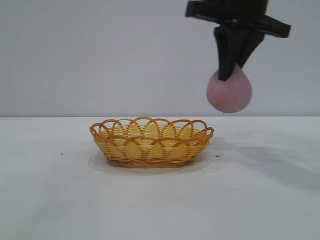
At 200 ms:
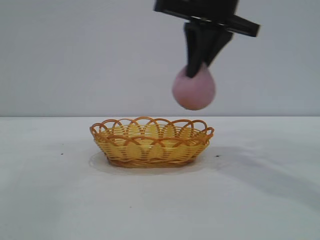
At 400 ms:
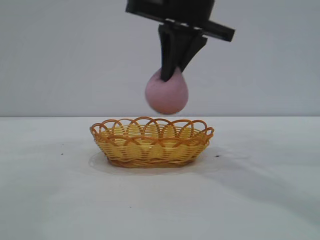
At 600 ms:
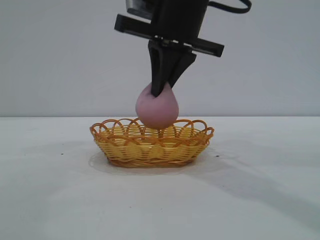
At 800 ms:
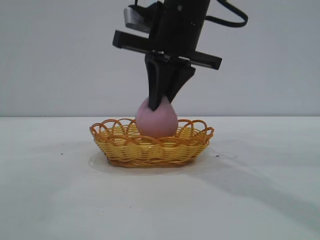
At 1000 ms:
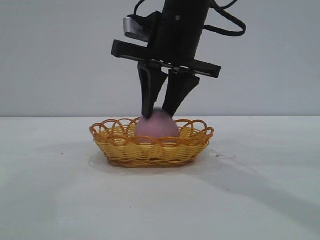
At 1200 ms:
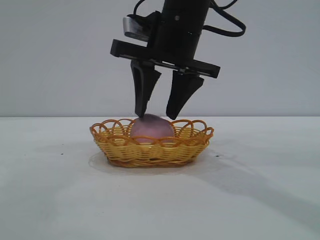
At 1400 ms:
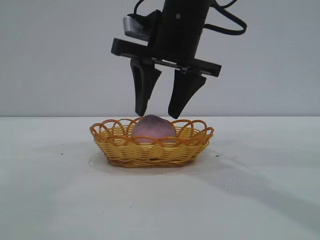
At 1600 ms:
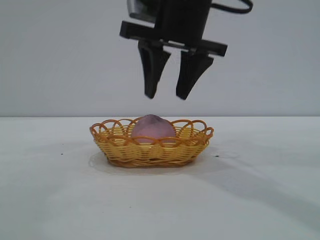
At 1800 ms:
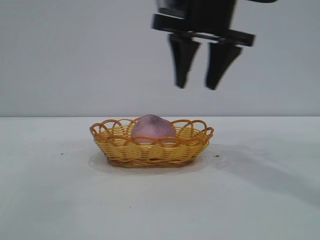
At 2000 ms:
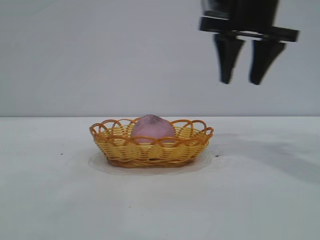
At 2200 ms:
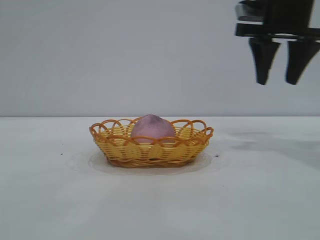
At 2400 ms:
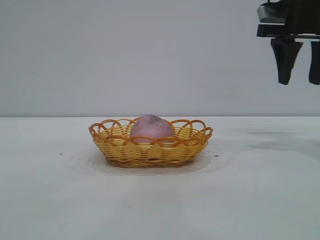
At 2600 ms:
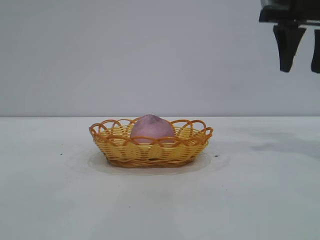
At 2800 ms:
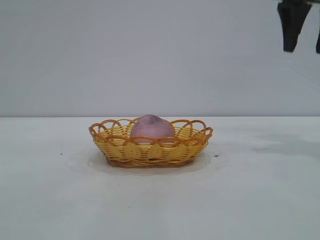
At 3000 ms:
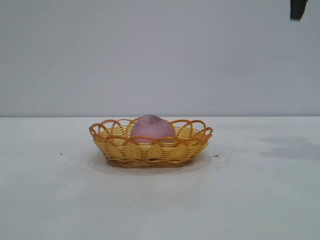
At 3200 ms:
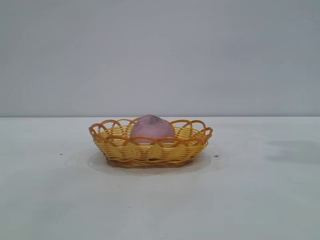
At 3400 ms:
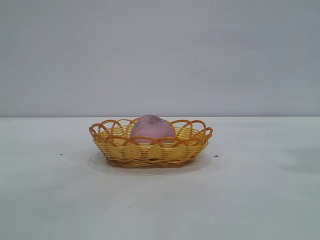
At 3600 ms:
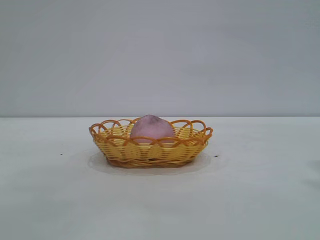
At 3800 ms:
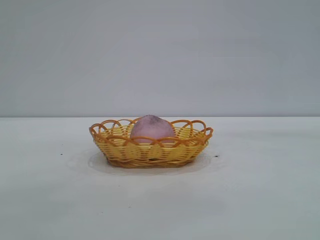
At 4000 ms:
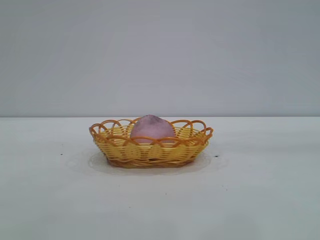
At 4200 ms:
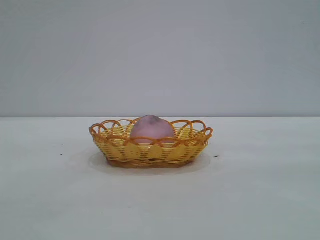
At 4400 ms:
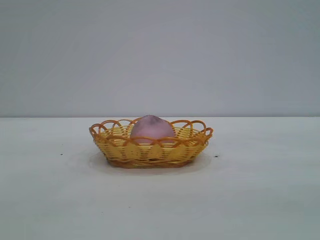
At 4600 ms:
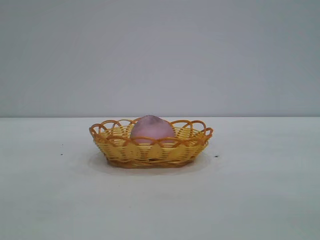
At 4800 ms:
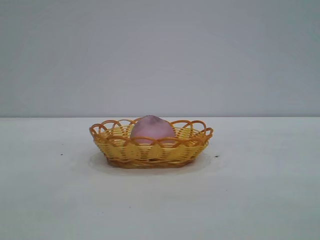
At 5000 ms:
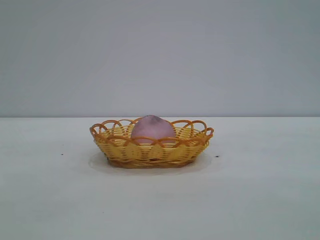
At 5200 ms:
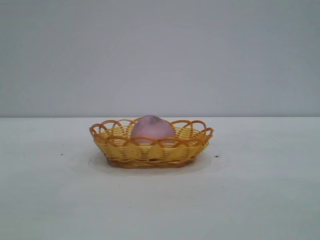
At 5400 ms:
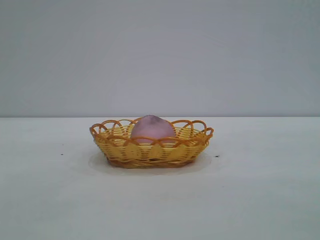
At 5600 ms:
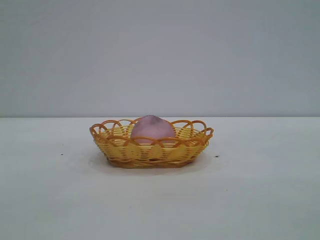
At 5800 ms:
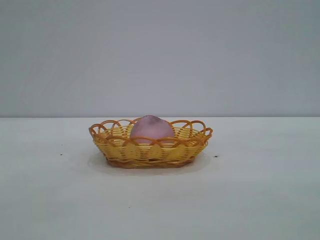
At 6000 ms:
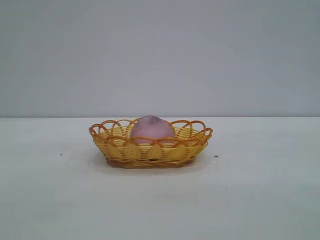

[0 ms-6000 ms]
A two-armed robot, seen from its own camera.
Task of the whole recording: pick up the peach and put it into the basket.
Step, 0 ms to 1600 ms: place the peach into the basket.
